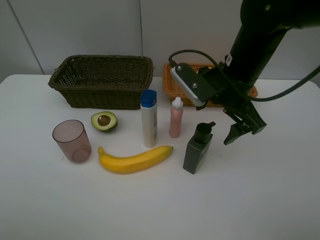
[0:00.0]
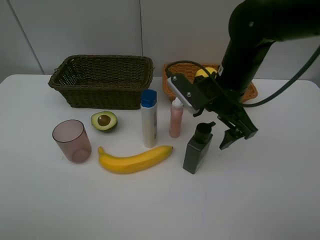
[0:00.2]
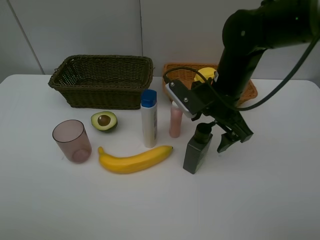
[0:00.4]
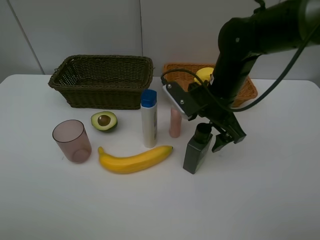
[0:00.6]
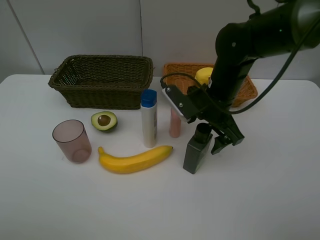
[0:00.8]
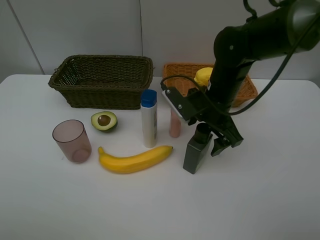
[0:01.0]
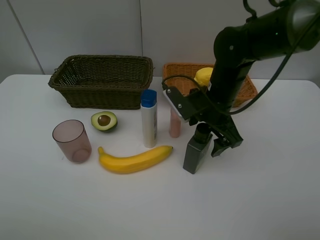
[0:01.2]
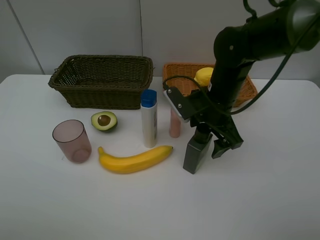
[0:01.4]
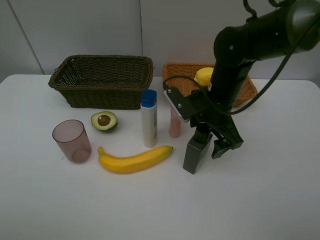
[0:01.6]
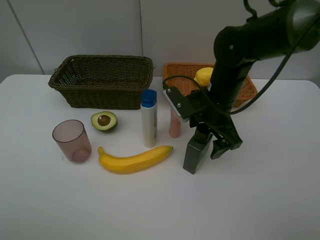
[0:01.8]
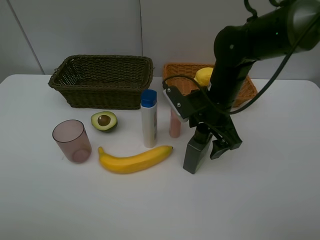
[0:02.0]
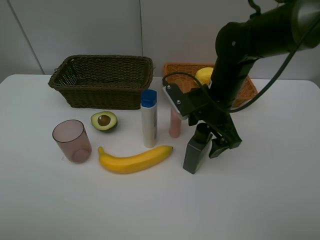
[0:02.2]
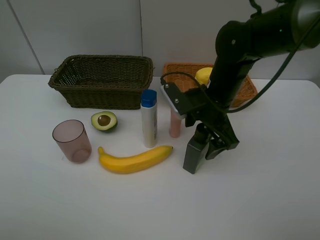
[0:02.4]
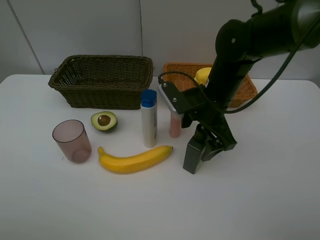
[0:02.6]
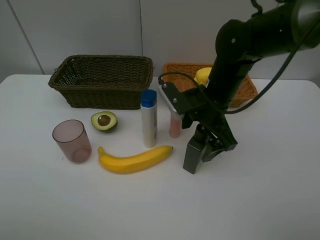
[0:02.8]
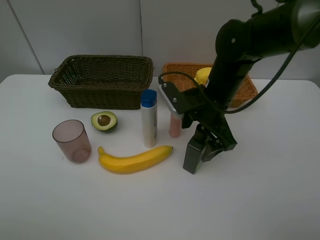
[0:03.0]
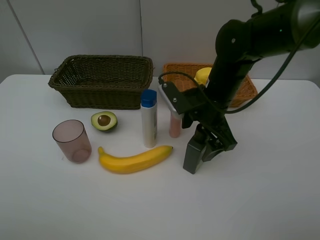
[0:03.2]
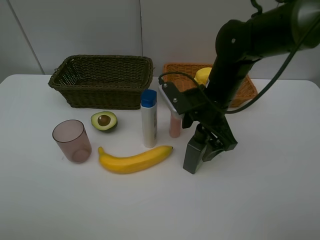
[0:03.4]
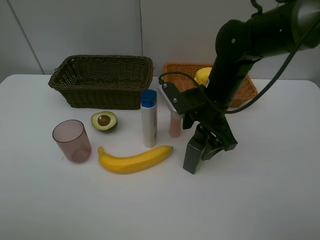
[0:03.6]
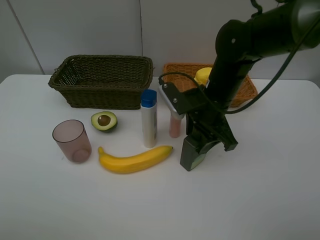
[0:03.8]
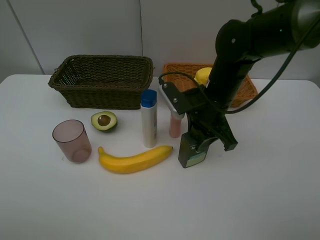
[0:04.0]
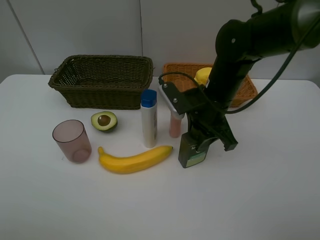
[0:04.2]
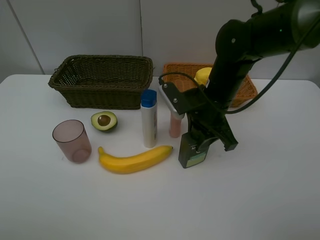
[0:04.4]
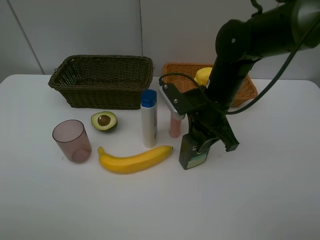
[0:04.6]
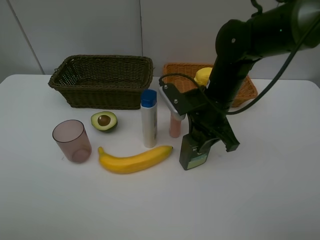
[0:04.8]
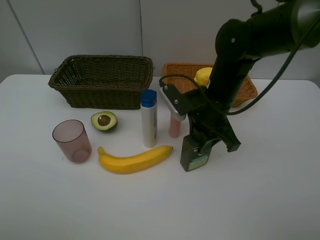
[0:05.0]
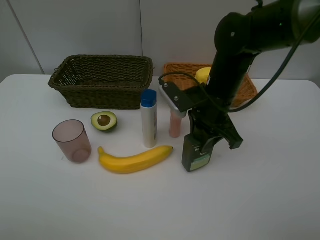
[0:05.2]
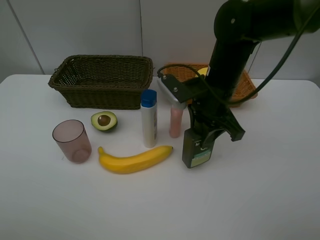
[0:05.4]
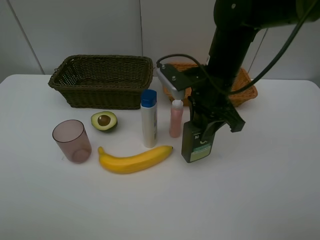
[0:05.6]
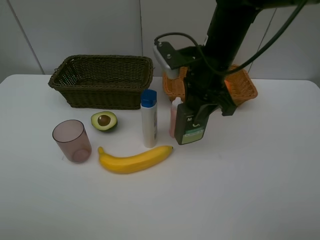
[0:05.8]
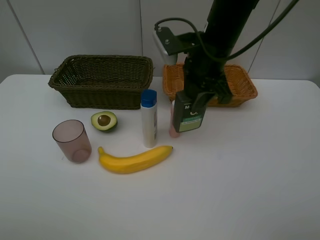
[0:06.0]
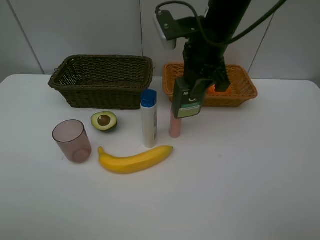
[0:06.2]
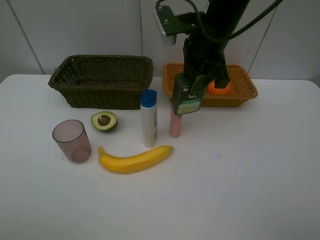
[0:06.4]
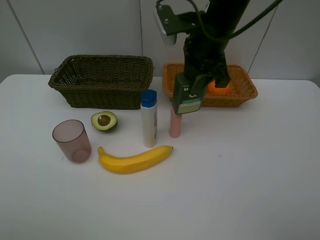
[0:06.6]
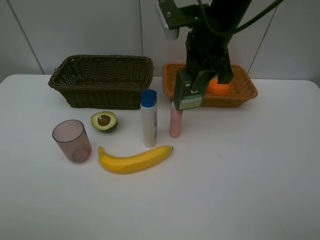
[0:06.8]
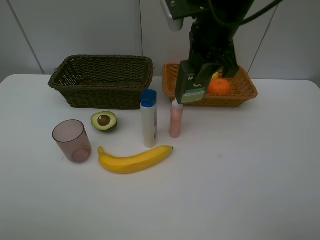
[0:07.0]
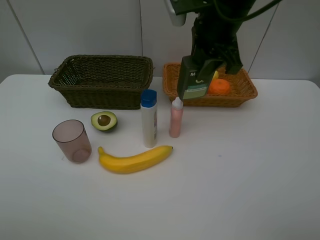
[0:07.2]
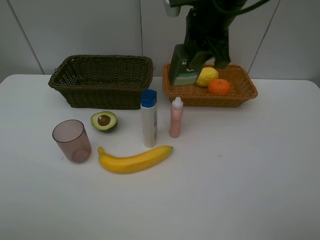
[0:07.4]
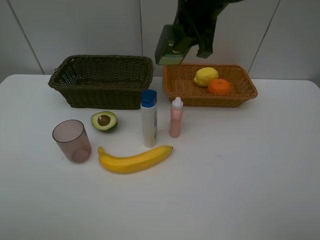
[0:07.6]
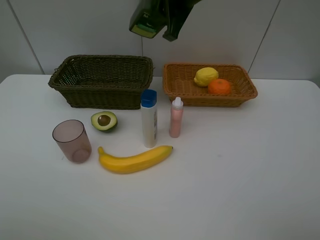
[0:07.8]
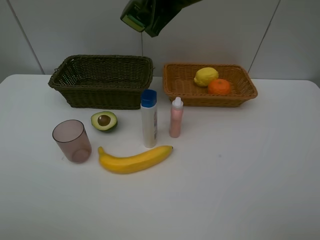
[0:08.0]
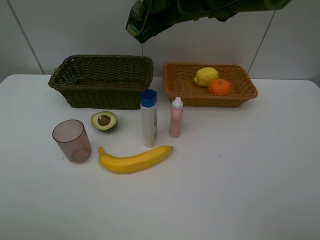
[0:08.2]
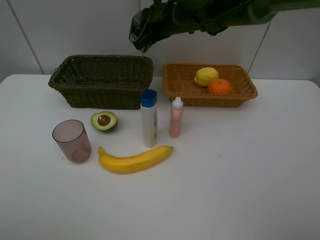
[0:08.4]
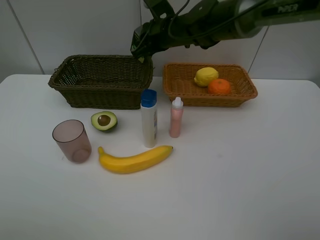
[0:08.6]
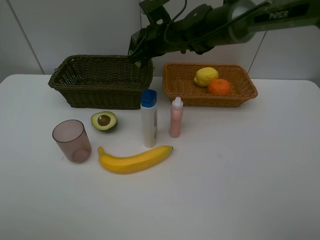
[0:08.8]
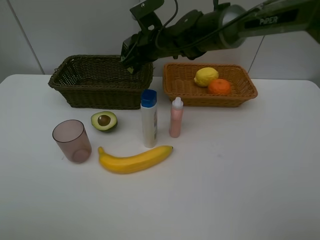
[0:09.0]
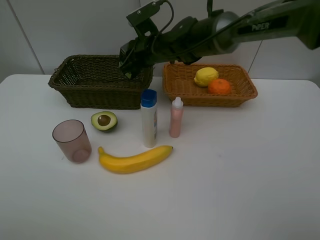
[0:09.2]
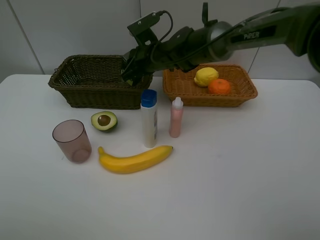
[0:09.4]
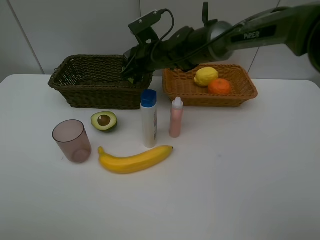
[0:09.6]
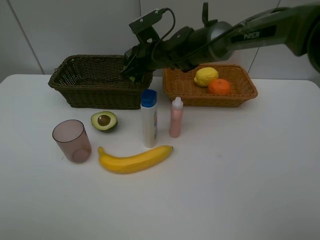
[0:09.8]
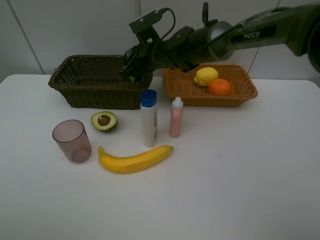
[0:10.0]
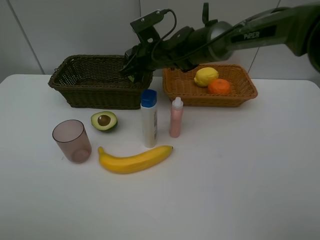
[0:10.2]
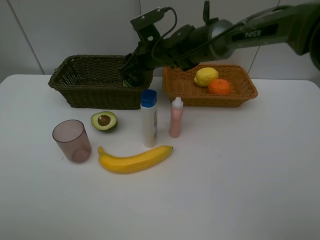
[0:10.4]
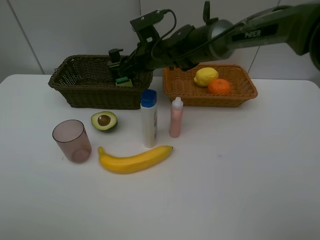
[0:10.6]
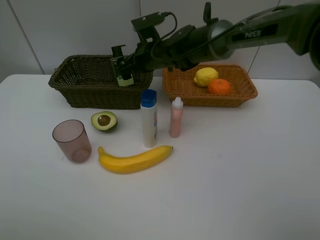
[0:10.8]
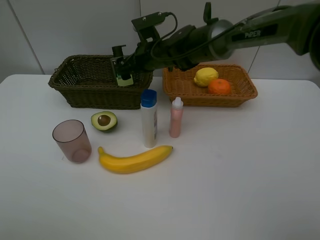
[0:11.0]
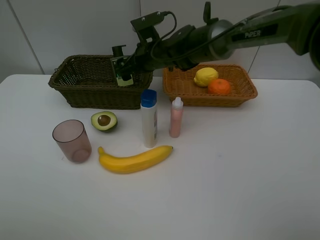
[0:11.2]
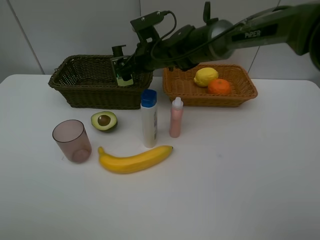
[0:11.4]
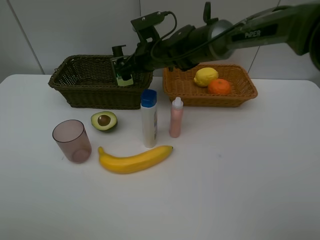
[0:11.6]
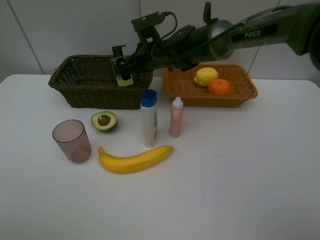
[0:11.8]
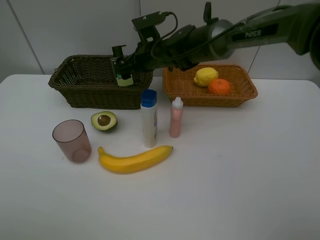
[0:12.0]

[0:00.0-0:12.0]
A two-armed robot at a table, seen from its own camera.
Task of the whole recording: Place multiple objects separately in different baskets.
Step, 0:00.0 to 0:05.4: Pick up the hard facial cleanser with right gripper.
Step, 0:05.6 to 0:11.2: Place the hard facial cleanser in the dark basket with right gripper.
0:00.0 to 0:01.6: The right gripper shifts about 5 cm downward.
0:01.6 to 0:03.0: The grippers stay close to where they were, moving slightly.
0:03.0 to 0:04.4: The right gripper closes up.
0:04.4 to 0:06.0: The right gripper moves upward, about 10 cm.
0:06.0 to 0:07.6: The right gripper goes approximately 5 cm upward.
0:07.6 to 0:09.0: The right gripper heads downward, to the left and forward, covering roughly 15 cm.
0:09.0 to 0:10.4: The grippers move only a little.
0:10.4 to 0:12.0: The right gripper opens up.

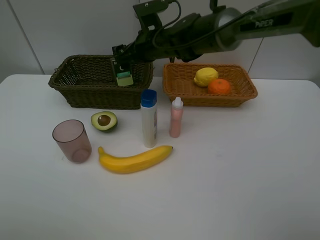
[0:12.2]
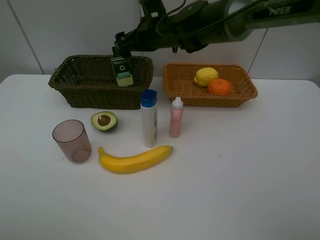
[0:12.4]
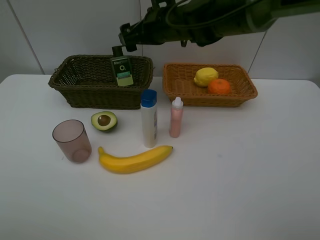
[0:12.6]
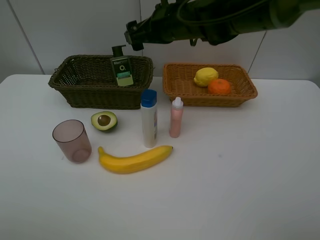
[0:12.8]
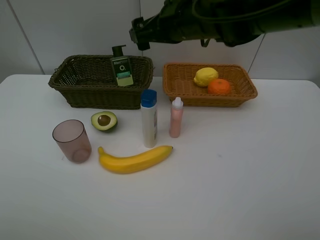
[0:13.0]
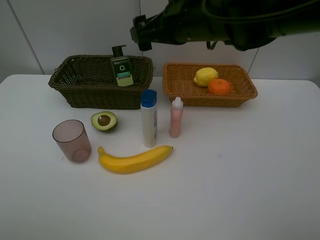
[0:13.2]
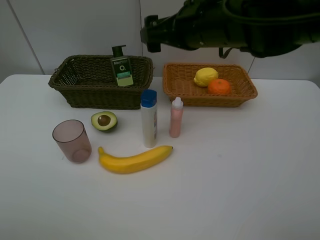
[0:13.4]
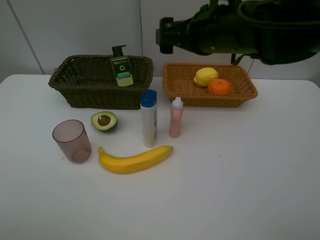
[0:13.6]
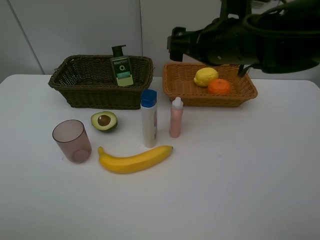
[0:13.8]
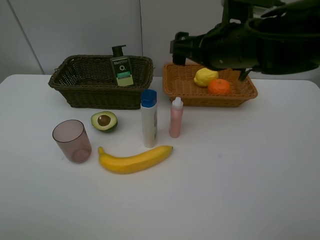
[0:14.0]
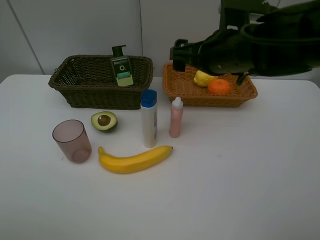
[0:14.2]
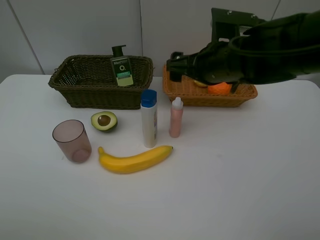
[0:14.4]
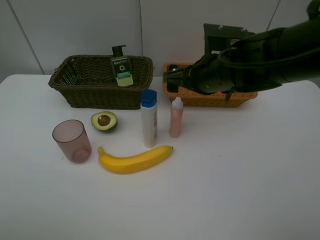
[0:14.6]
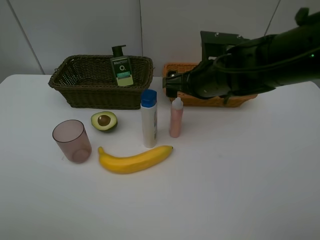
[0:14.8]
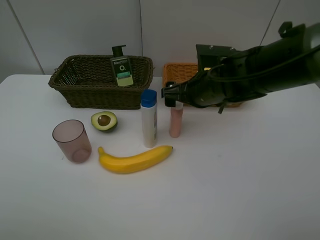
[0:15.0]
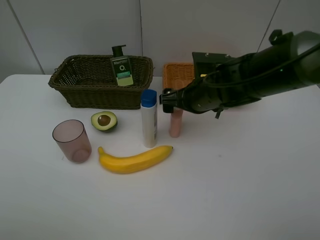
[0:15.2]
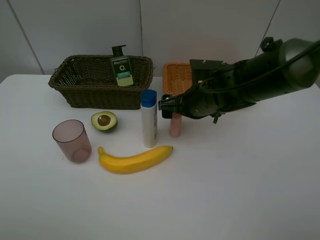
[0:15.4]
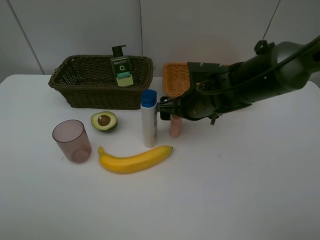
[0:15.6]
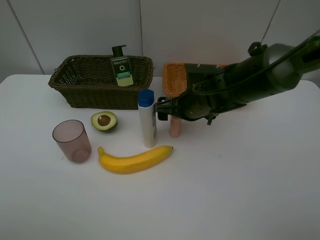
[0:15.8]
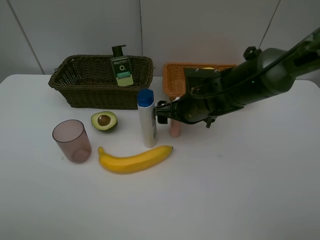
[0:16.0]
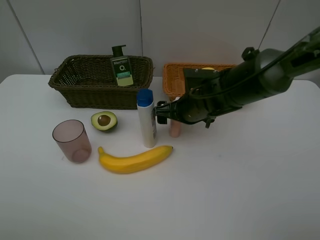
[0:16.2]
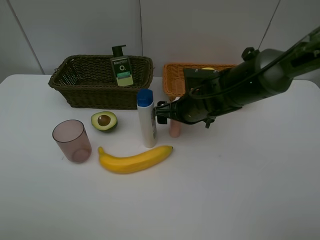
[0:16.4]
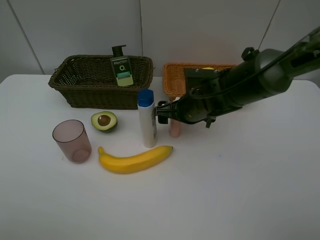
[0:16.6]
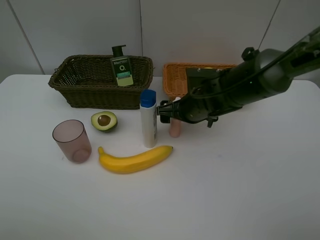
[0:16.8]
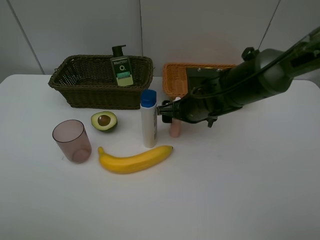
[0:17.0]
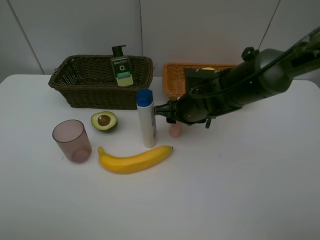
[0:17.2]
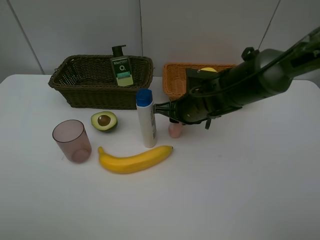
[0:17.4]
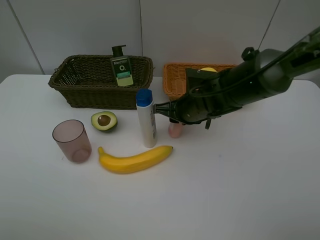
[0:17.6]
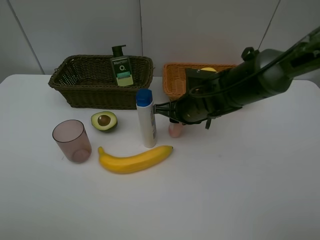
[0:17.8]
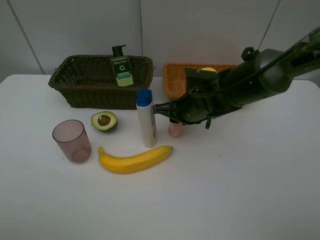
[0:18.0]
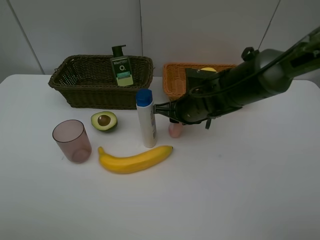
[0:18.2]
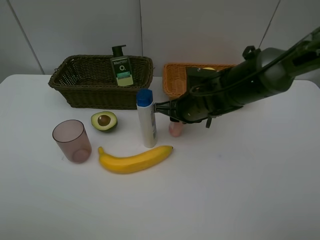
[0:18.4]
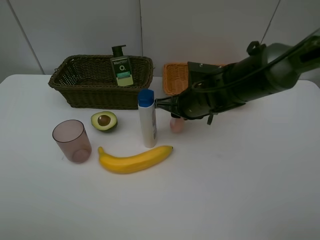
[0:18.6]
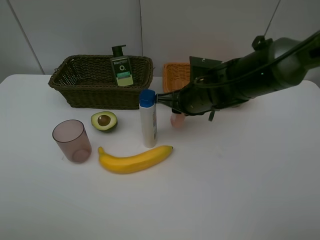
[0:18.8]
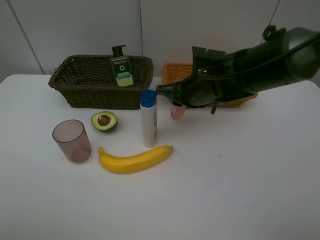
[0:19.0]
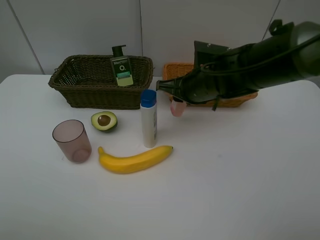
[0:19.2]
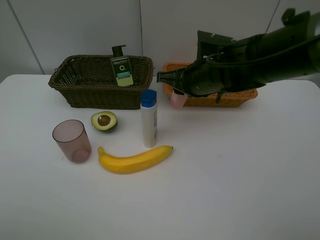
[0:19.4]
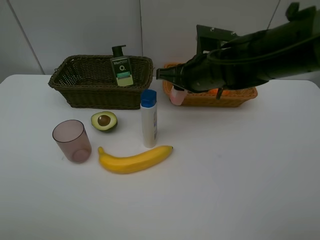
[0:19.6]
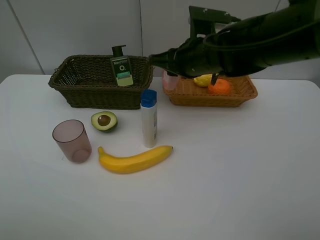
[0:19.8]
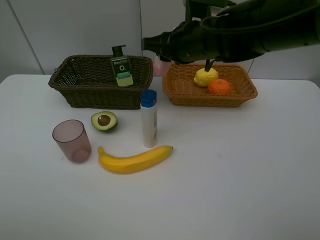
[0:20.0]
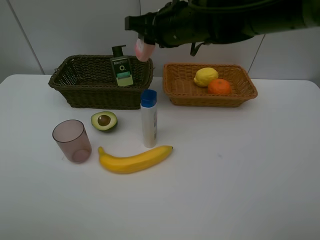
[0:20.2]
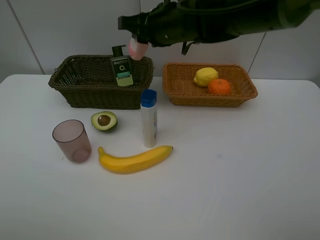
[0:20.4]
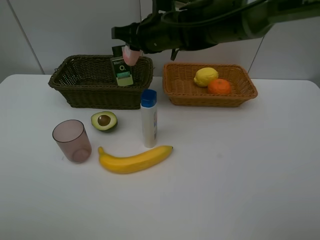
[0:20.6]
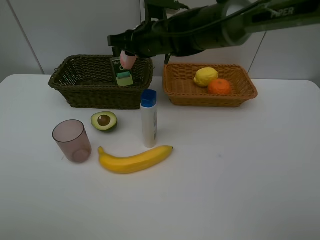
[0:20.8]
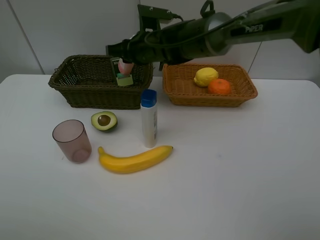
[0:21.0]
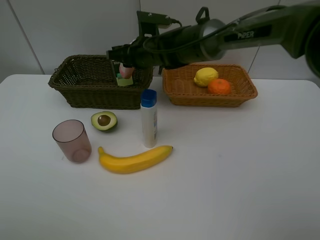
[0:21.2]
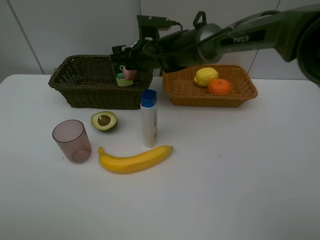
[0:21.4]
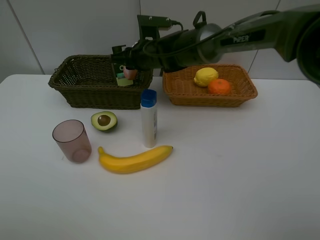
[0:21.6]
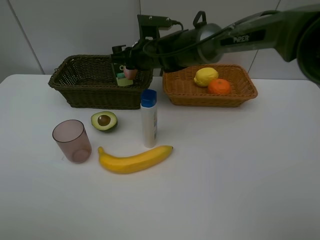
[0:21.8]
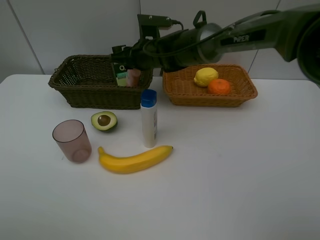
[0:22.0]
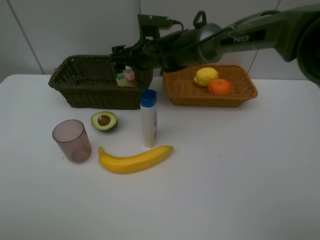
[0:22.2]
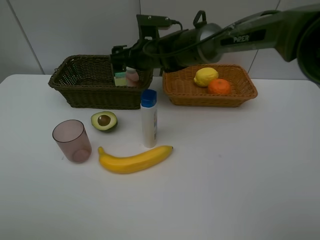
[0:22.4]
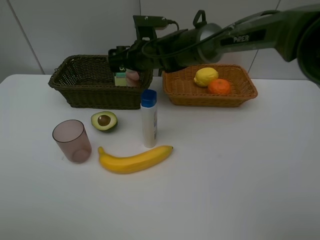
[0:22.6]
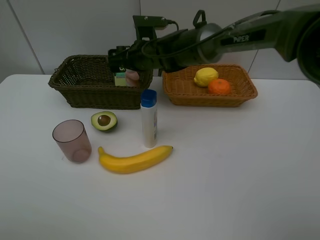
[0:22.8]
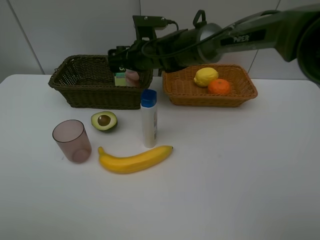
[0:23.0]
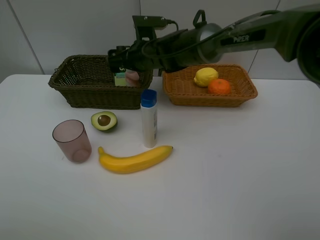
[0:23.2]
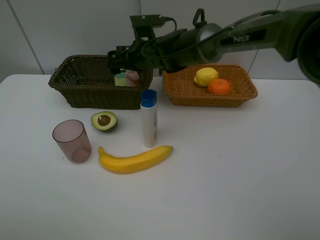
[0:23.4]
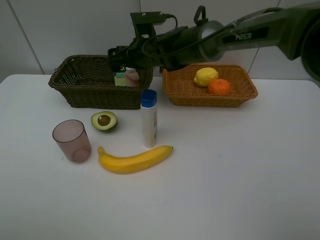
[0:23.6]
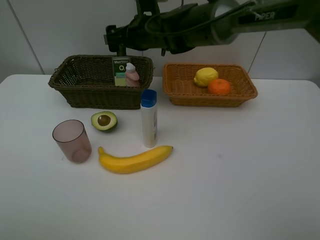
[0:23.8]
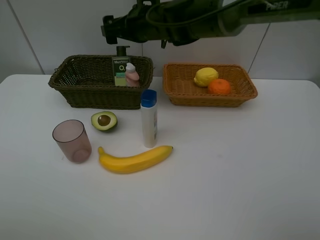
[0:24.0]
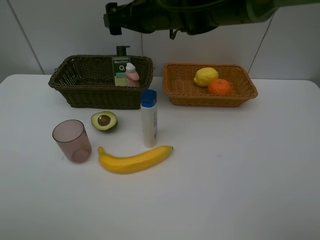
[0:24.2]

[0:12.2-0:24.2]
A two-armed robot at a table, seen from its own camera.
Task of the whole recording: Place multiple objects separately in different baskets.
Step, 0:12.2 to 0:18.6: Pick up the laundry detergent with right gripper.
Step, 0:18.8 to 0:23.6: Place the laundry detergent in the dark basket with right gripper.
0:12.2 to 0:13.8: The right gripper heads backward, to the right and upward, covering approximately 20 cm.
0:13.8 to 0:15.2: The right gripper travels downward by roughly 10 cm.
0:15.2 to 0:16.6: The grippers move only a little.
0:18.2 to 0:19.8: The right gripper travels upward by some 10 cm.
0:19.8 to 0:21.2: The right gripper goes approximately 15 cm forward, to the left and downward.
0:21.2 to 0:22.6: The right gripper opens.
0:22.6 to 0:24.2: The right gripper is displaced upward by some 10 cm.
